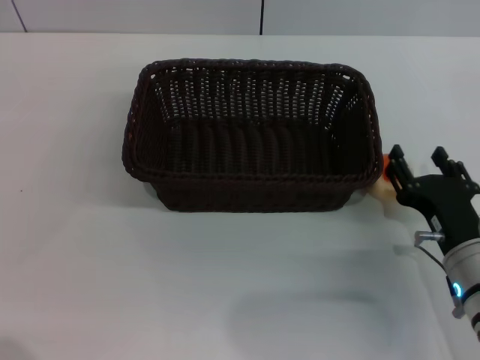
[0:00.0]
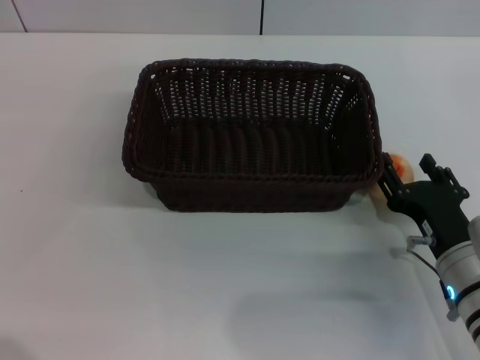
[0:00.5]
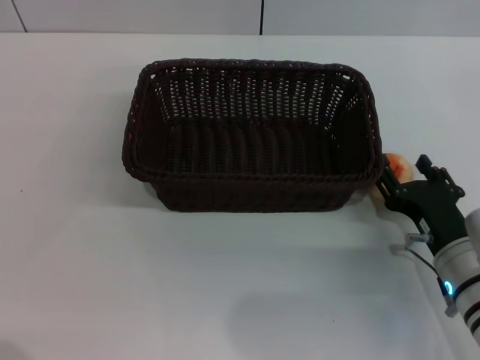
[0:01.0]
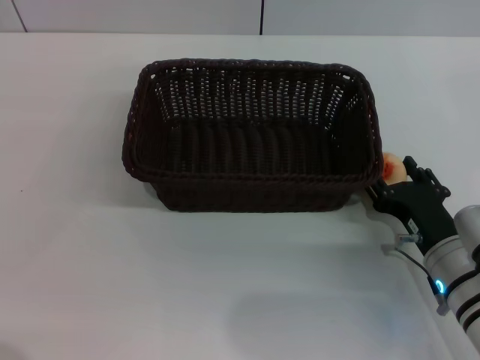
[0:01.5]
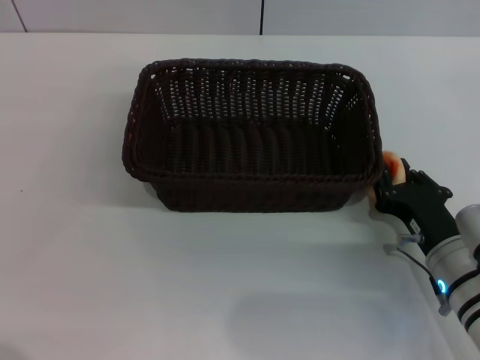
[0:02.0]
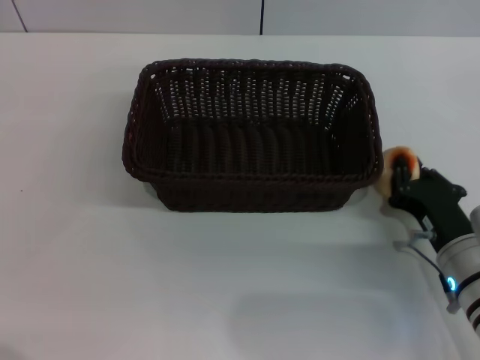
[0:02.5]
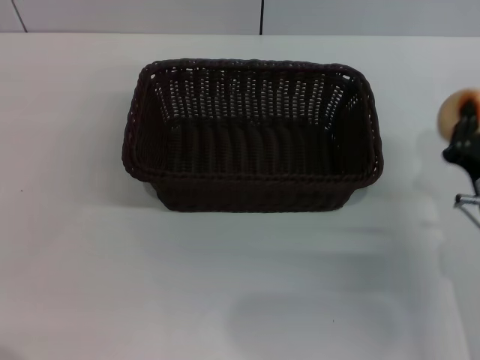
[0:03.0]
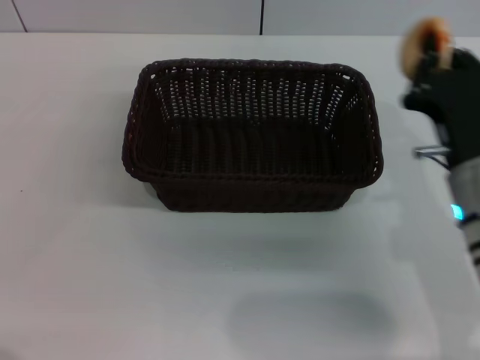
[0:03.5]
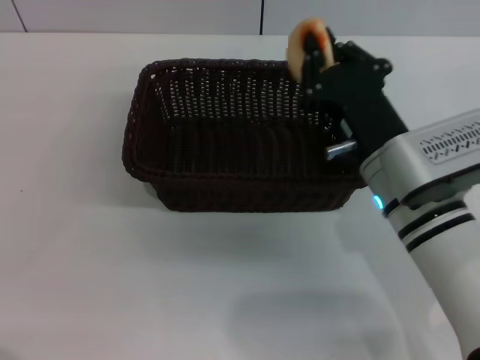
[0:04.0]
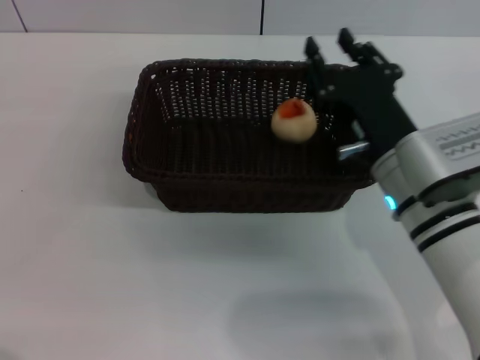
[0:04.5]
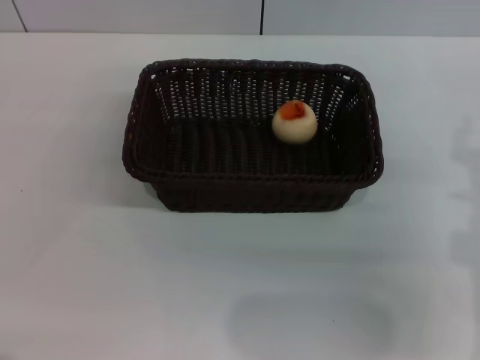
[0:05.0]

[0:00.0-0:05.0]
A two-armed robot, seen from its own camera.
Step, 0:00.0 to 0:02.5: Pick up the egg yolk pastry with the right gripper.
Step, 0:03.0 to 0:04.0: Place the egg yolk pastry into the basket with the right gripper.
0:00.0 to 0:02.5: The right gripper closes.
0:02.5 to 0:05.0: The right gripper shifts about 10 cm upward, reaches roughly 10 cm to the left, then returns, and opens its fingers.
